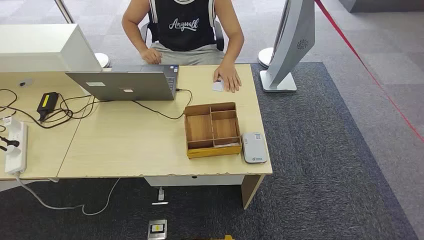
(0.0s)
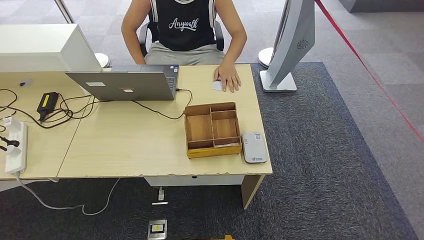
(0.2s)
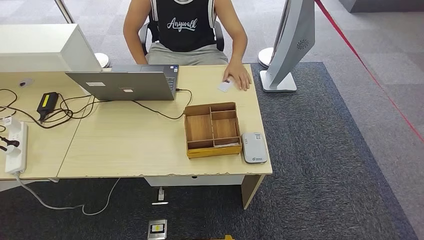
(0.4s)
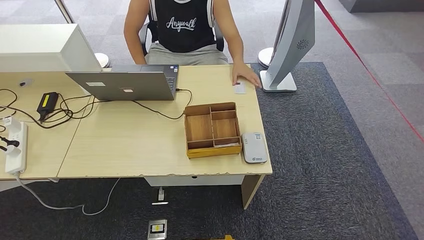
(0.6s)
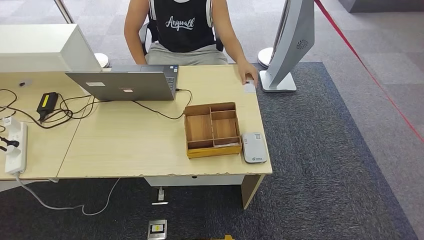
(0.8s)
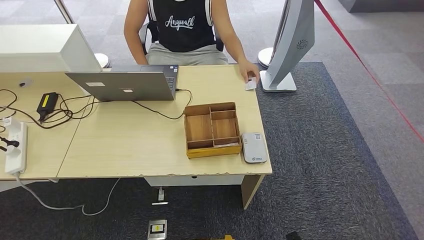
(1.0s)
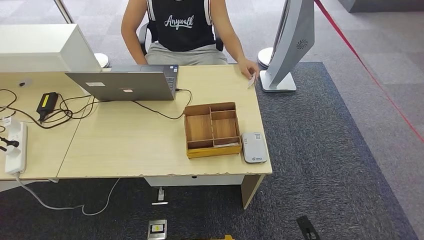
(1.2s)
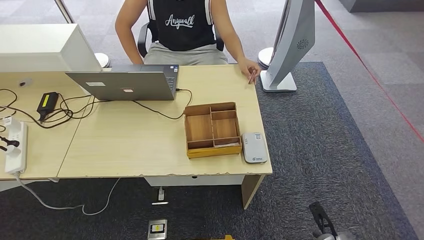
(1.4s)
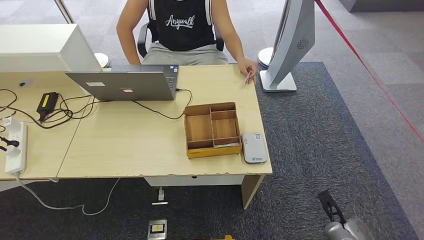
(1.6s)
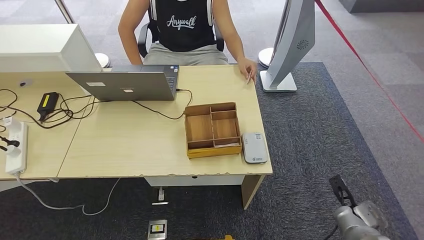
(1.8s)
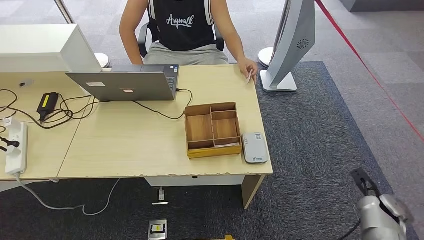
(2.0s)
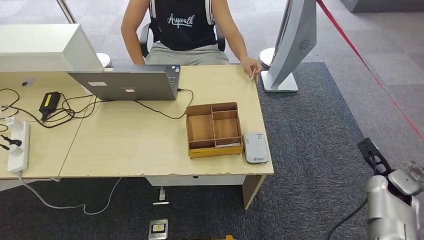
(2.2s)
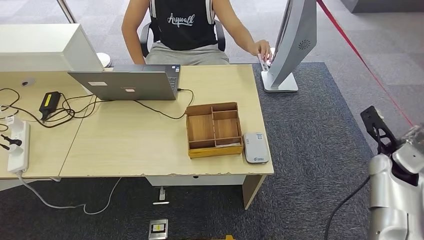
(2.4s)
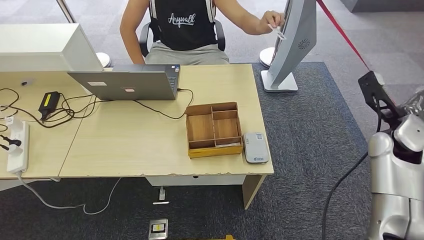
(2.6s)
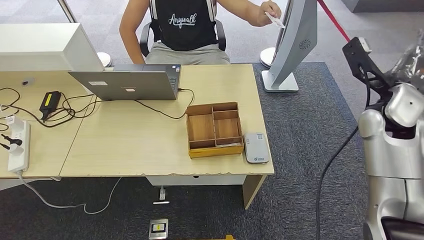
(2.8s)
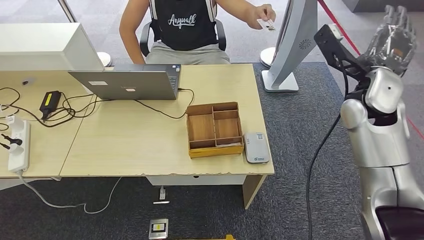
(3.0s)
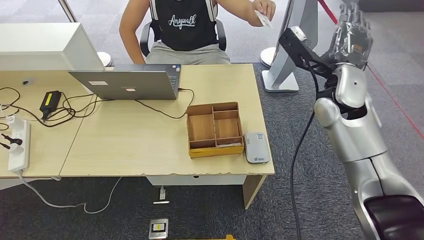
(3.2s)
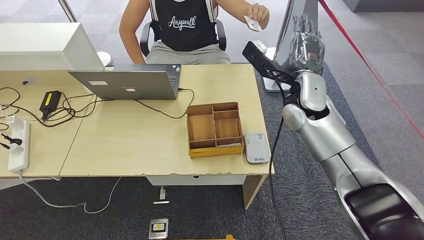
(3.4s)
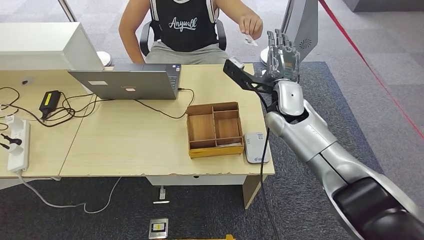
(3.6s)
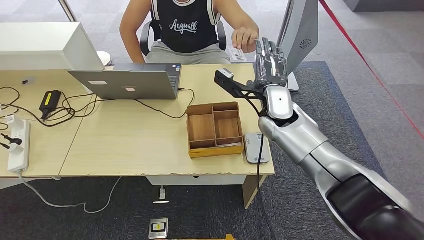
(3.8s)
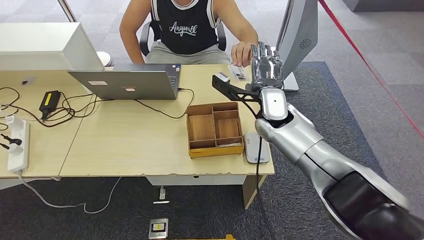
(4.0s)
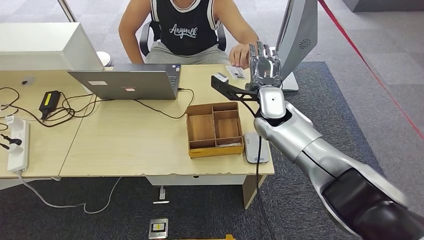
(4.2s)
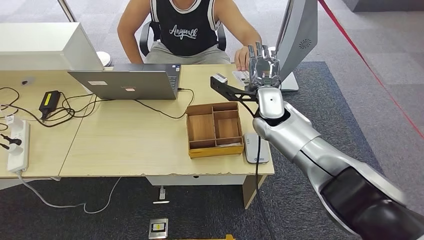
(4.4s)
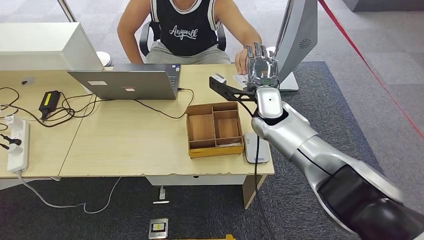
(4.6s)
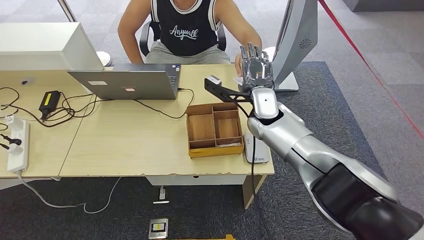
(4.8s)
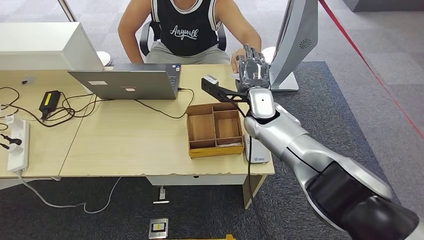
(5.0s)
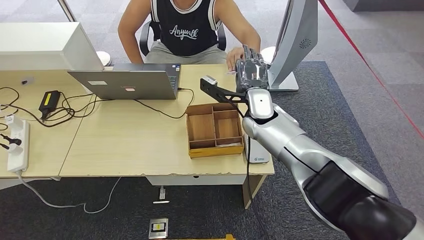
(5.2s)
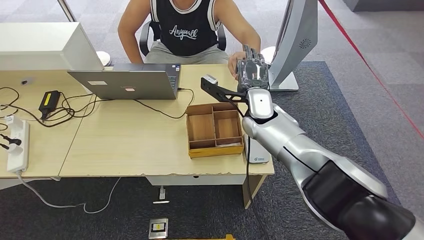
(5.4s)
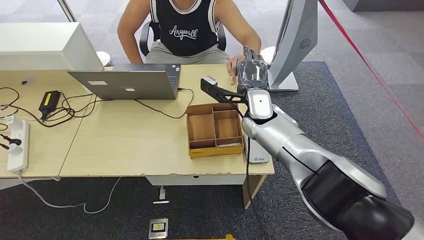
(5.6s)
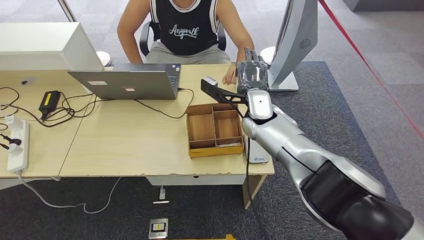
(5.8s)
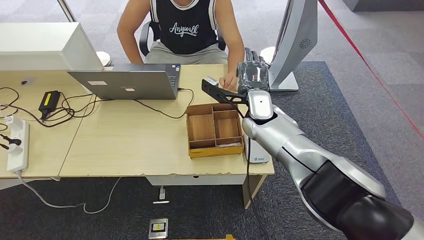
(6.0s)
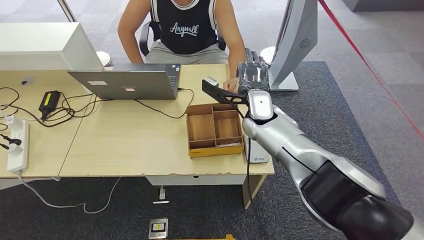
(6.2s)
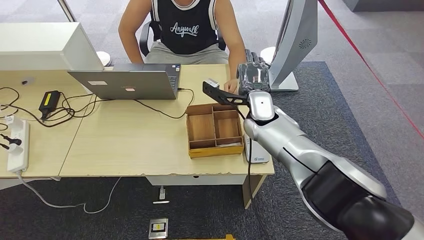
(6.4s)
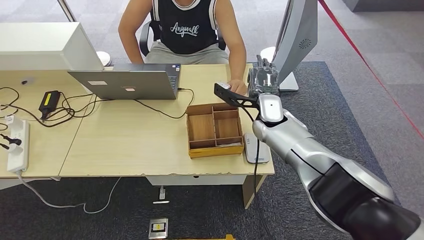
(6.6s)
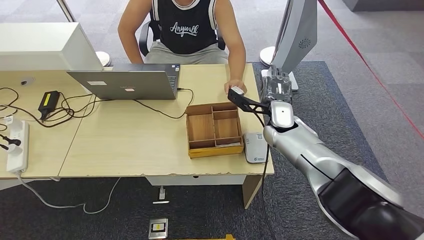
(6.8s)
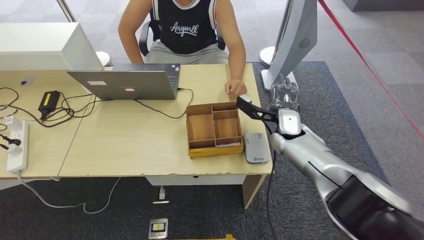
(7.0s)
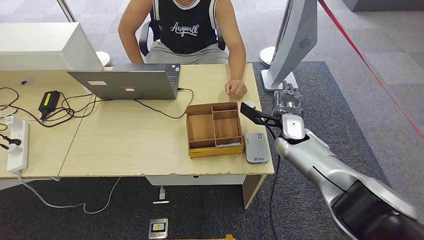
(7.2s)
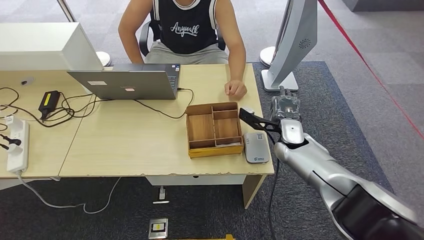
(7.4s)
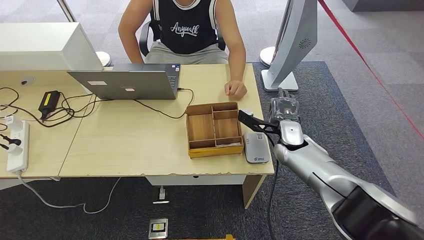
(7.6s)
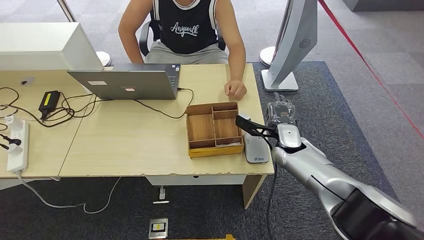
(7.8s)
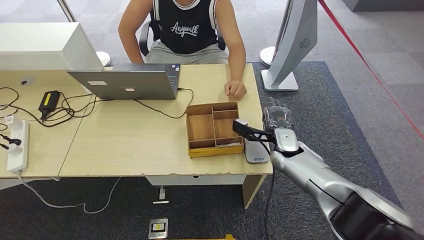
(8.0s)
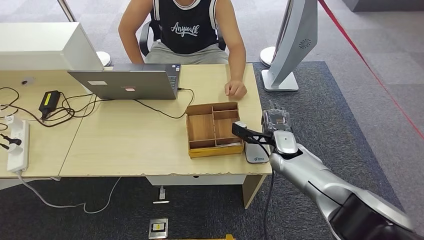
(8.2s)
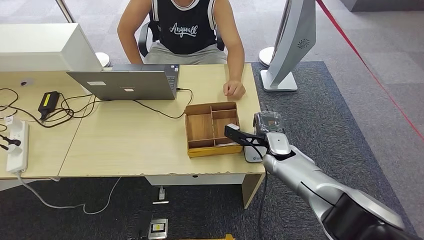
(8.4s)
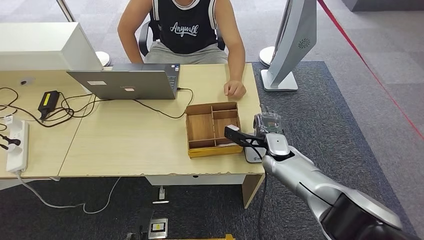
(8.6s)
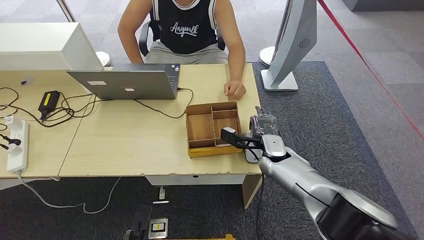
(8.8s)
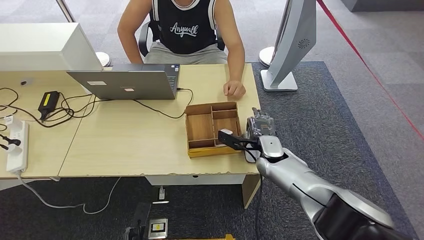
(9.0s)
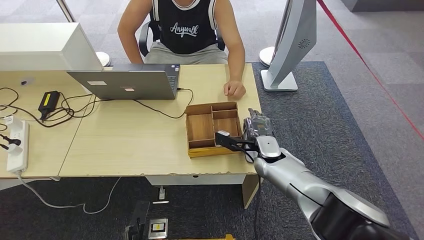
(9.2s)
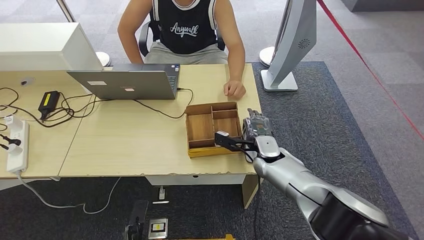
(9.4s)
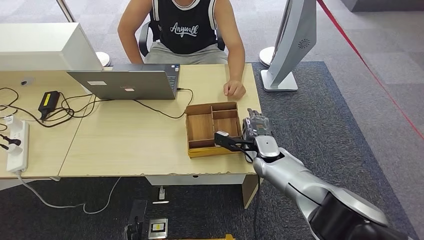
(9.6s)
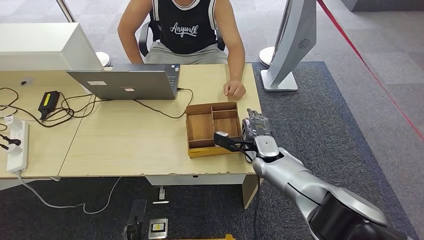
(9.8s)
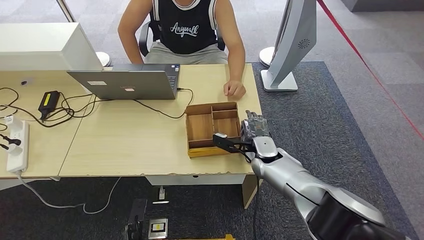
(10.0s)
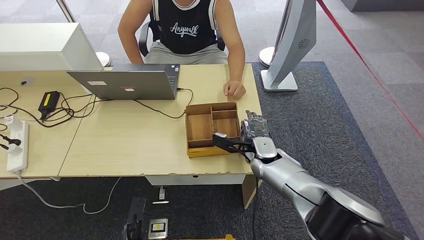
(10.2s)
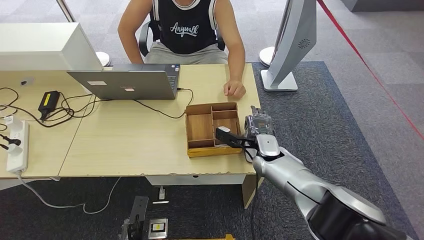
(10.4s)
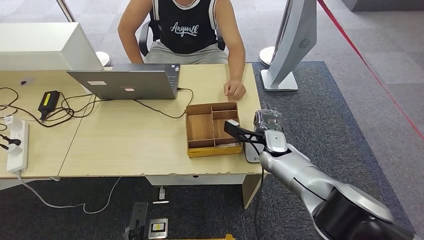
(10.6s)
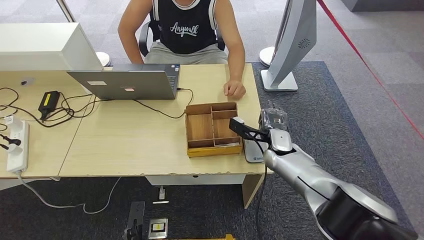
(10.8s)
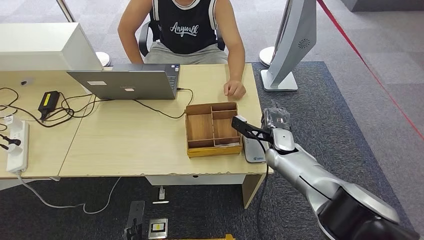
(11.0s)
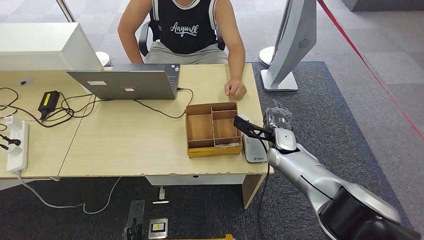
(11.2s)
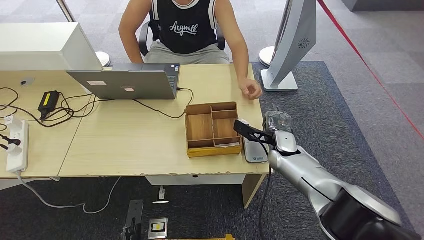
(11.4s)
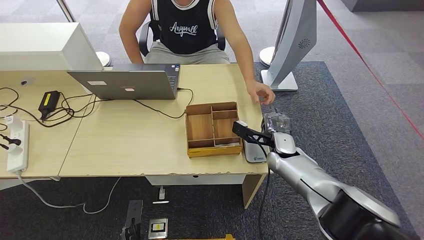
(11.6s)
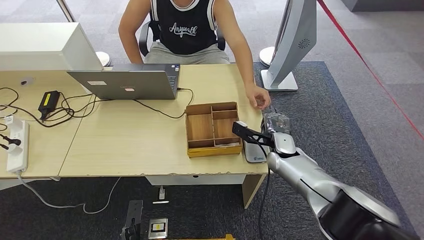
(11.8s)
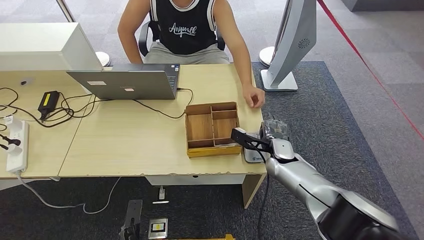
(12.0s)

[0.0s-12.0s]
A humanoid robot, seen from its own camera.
Step, 0.0s to 6.0s: Take the ID card from the person's hand.
Step, 6.4s to 10.6s: Place the ID card on the card reader.
4.4s to 6.0s: The hands make only small movements.
6.0s to 7.6s: The right hand shifts approximately 15 cm to the right and downward.
7.6s to 9.0s: The right hand goes about 5 cm to the left, while the left hand travels forward by approximately 10 cm.
9.0s to 12.0s: The hands stay close to where they were, moving slightly.

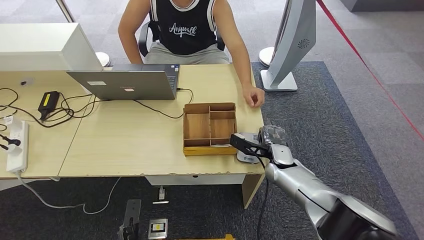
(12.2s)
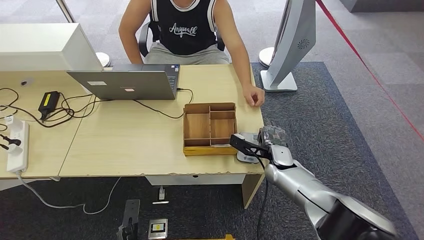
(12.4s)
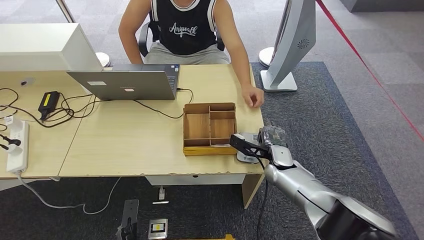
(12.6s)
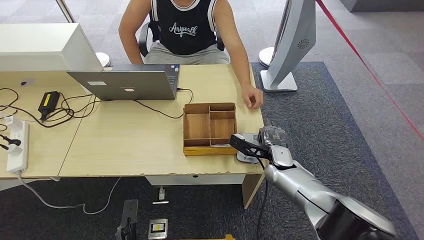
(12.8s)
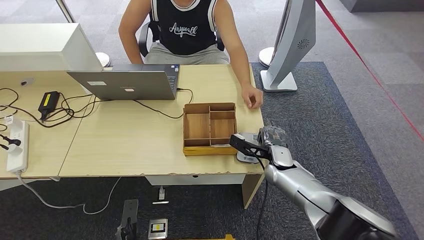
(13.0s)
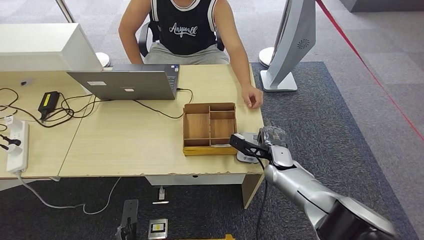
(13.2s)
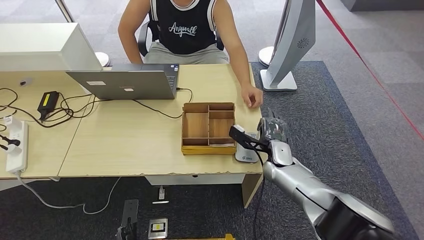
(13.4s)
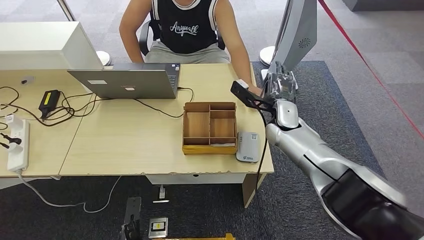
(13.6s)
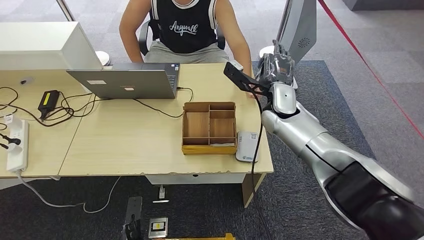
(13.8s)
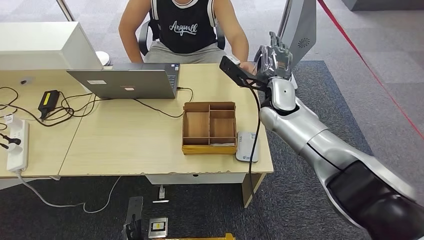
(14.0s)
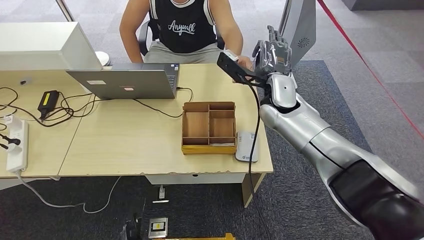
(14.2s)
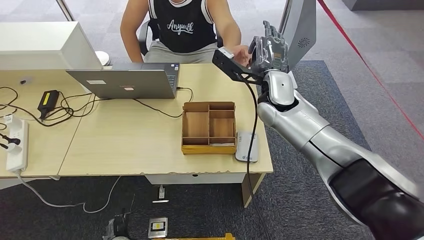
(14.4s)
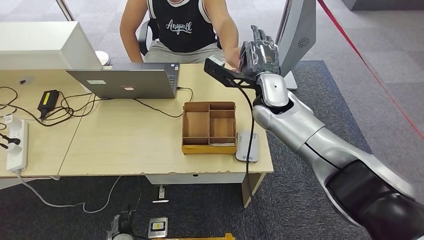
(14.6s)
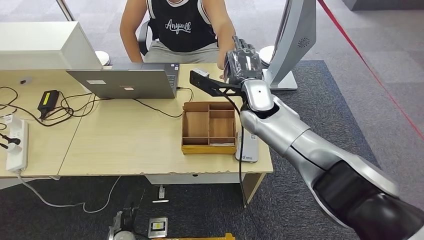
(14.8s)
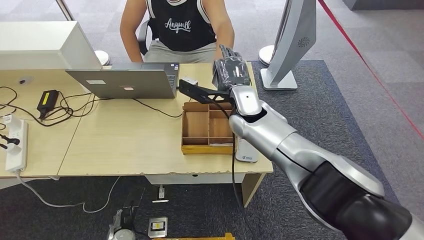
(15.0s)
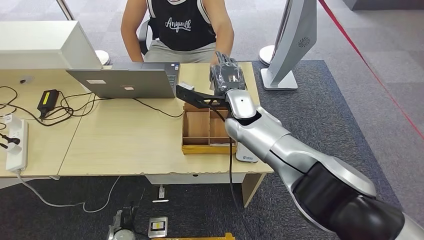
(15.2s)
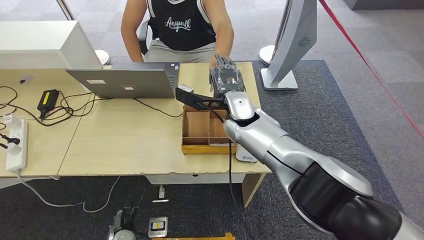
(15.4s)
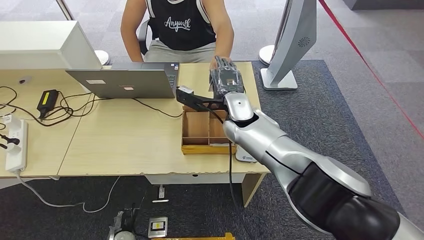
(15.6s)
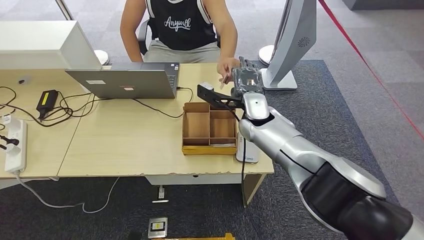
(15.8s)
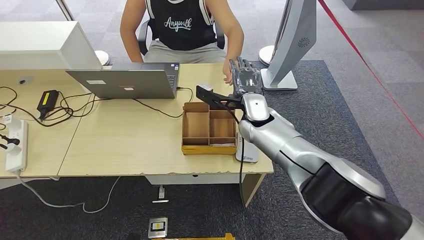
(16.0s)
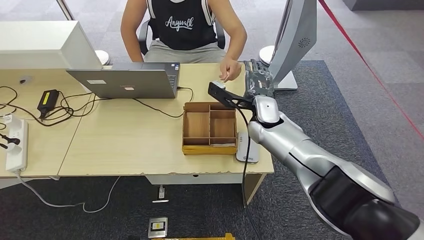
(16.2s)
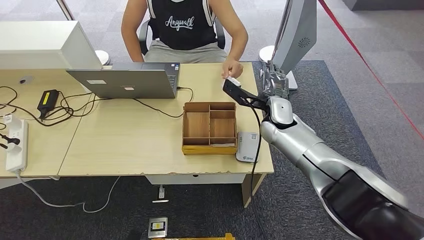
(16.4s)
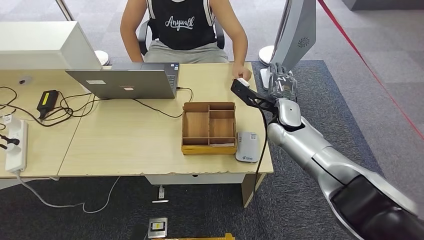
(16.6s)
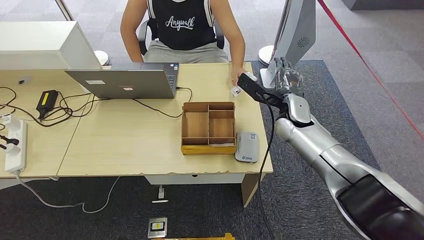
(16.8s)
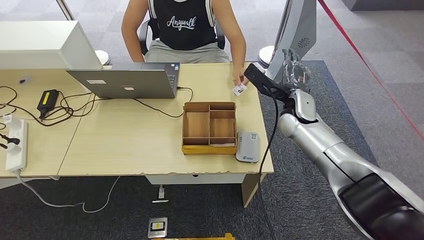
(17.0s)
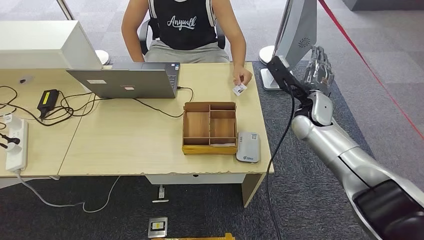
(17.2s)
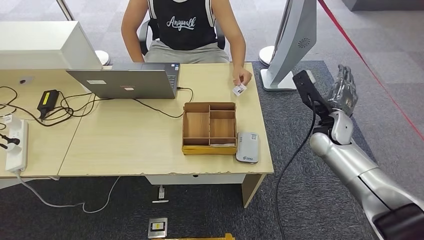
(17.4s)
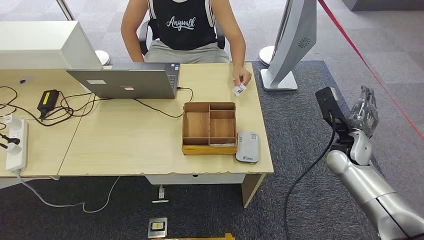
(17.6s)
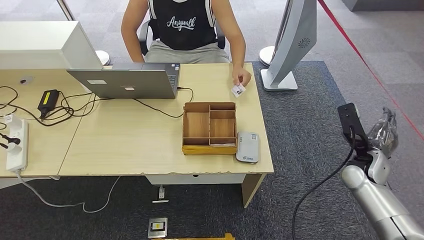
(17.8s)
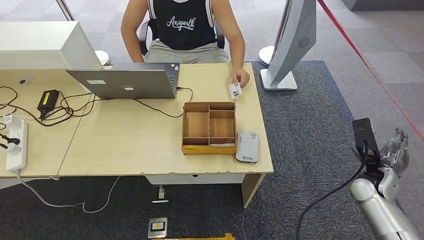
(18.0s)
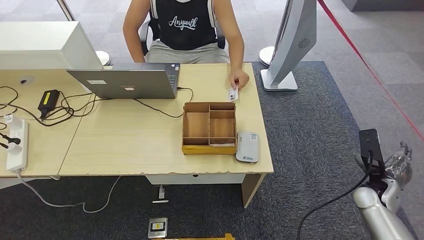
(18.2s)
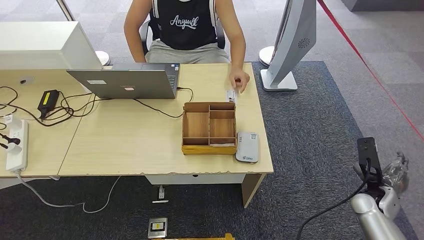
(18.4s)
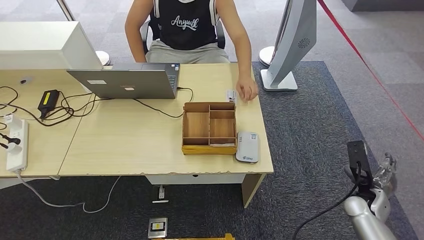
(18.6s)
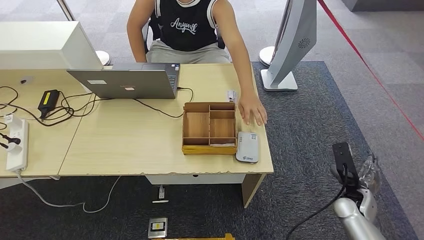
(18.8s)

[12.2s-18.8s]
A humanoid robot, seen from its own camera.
Step, 12.2s to 16.4s: Hand the ID card to the person.
12.2s to 13.8s: The right hand heads upward and forward, covering about 20 cm.
17.2s to 18.8s: The right hand shifts roughly 30 cm downward, backward and to the right.
